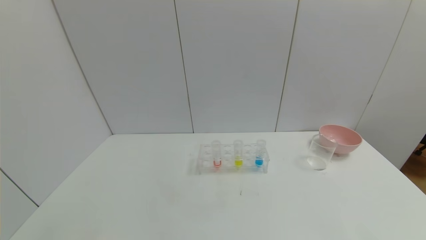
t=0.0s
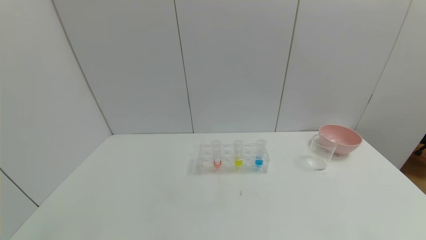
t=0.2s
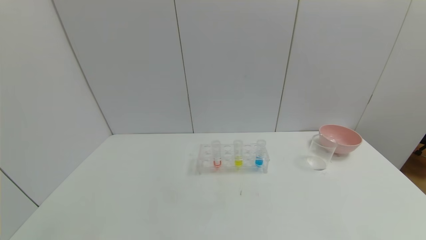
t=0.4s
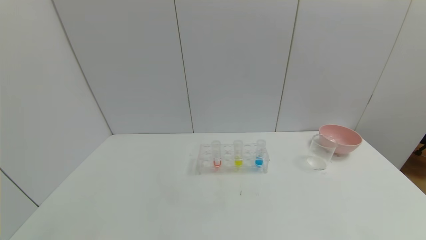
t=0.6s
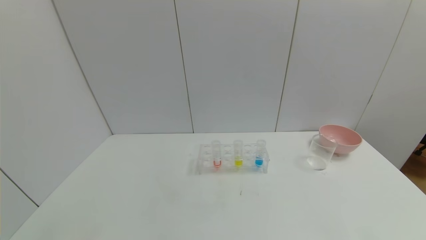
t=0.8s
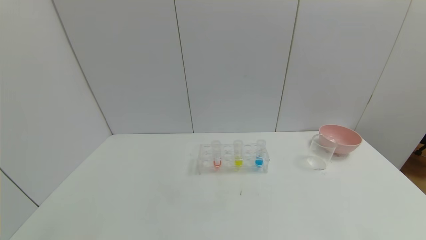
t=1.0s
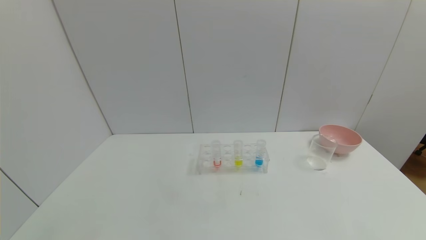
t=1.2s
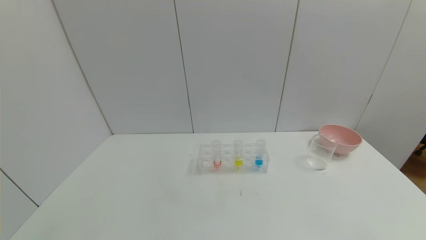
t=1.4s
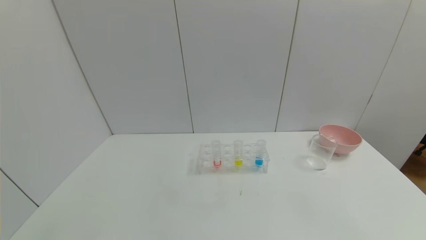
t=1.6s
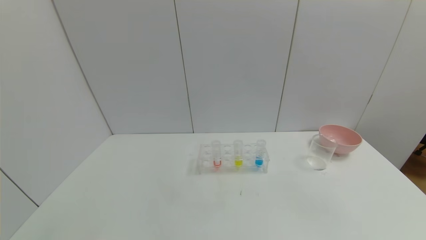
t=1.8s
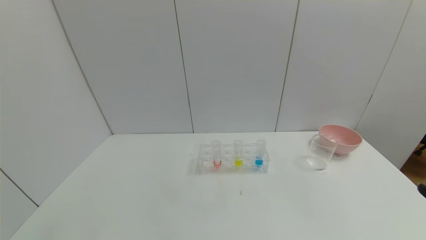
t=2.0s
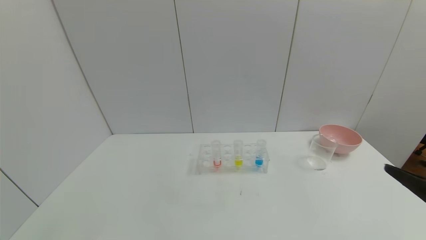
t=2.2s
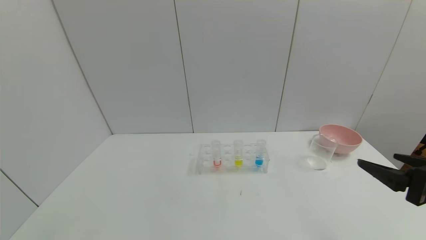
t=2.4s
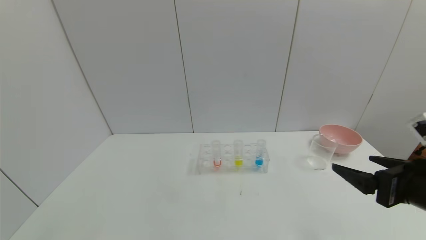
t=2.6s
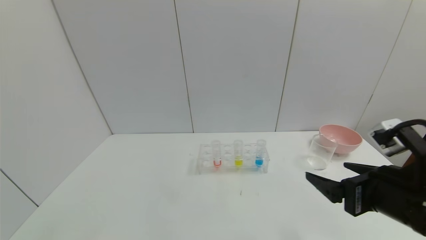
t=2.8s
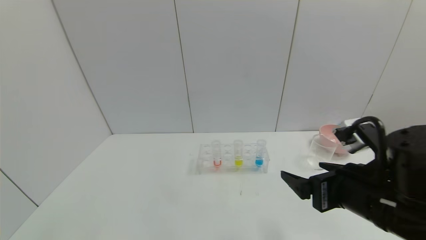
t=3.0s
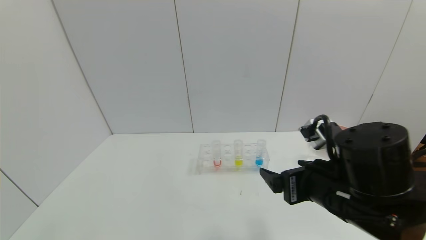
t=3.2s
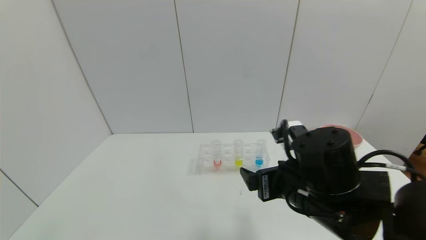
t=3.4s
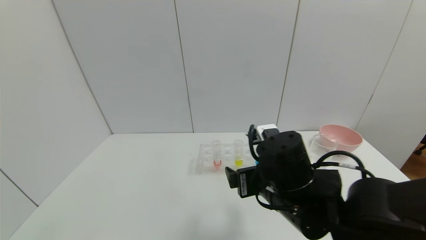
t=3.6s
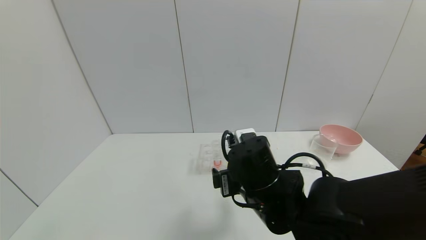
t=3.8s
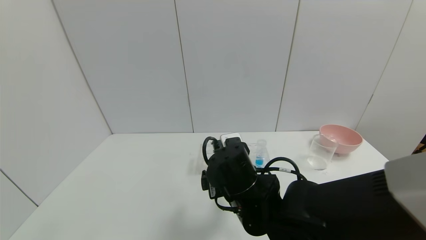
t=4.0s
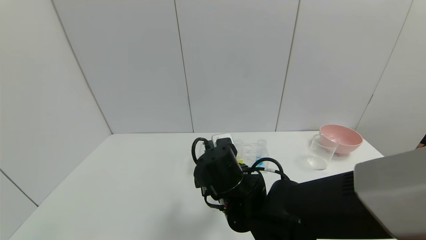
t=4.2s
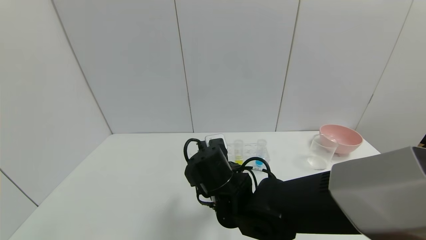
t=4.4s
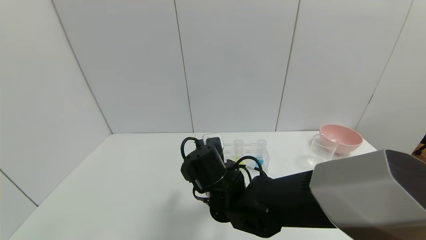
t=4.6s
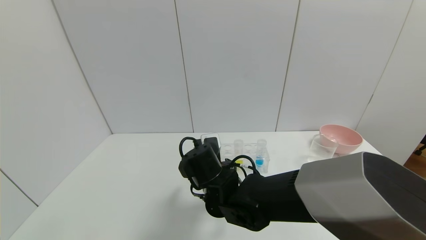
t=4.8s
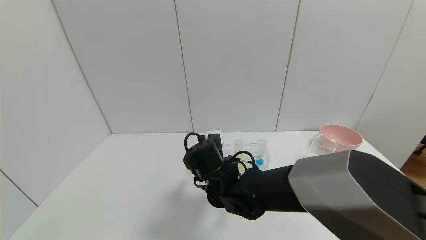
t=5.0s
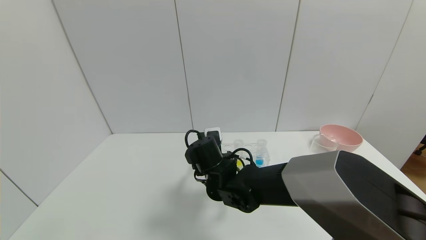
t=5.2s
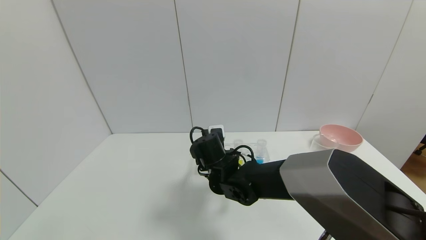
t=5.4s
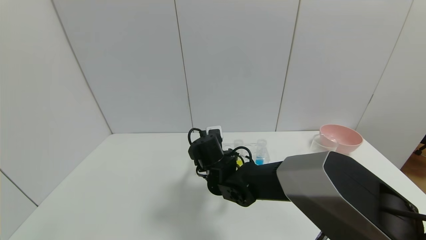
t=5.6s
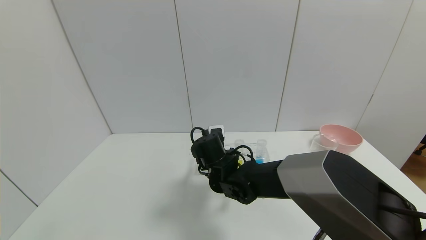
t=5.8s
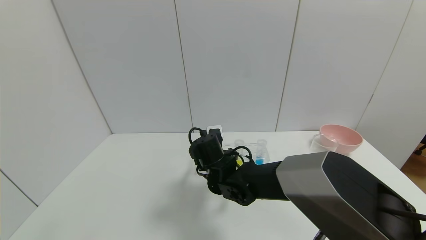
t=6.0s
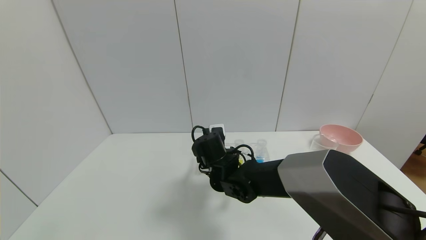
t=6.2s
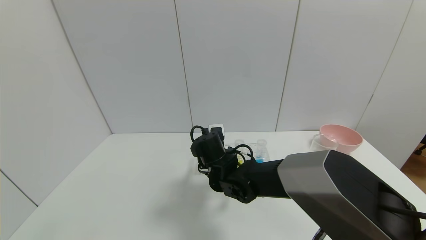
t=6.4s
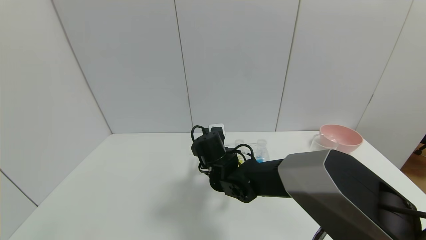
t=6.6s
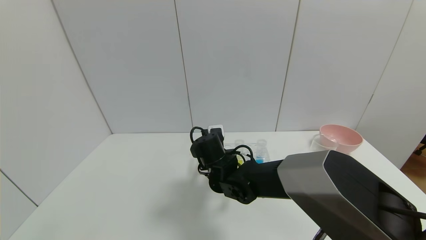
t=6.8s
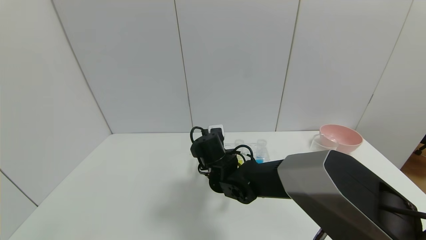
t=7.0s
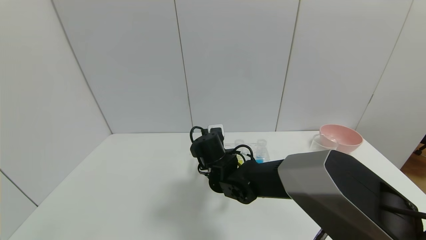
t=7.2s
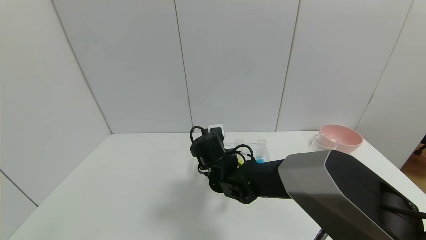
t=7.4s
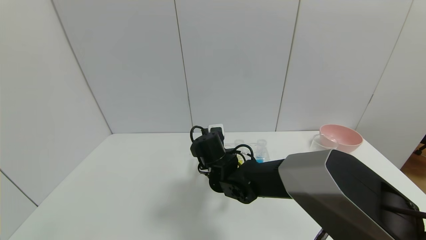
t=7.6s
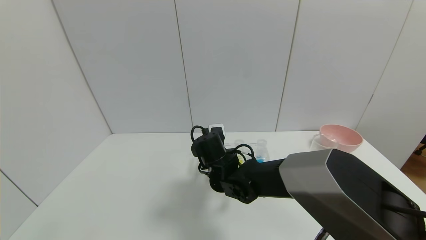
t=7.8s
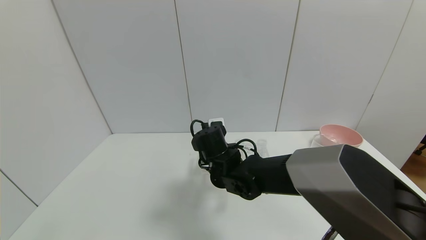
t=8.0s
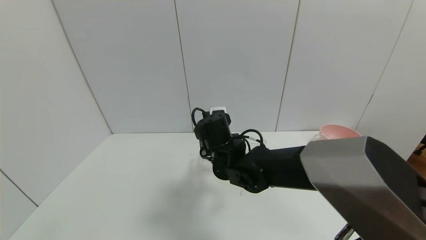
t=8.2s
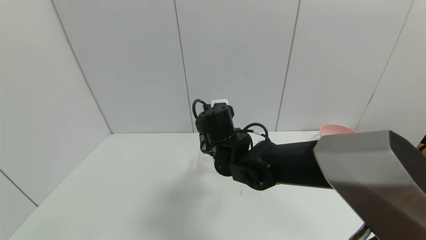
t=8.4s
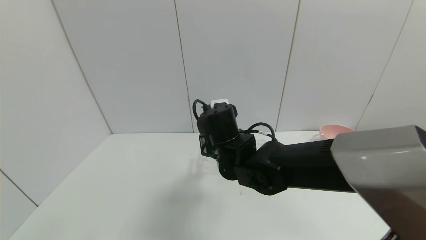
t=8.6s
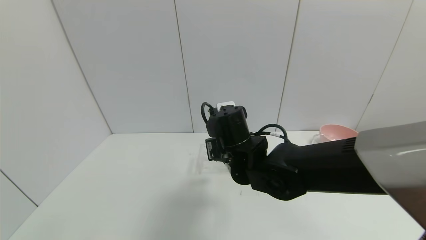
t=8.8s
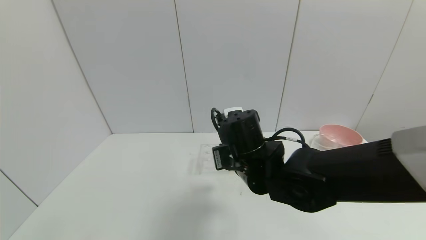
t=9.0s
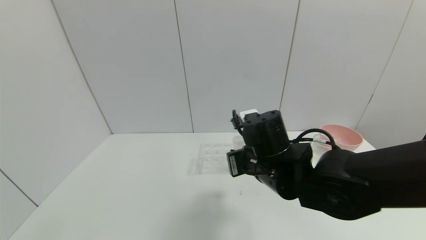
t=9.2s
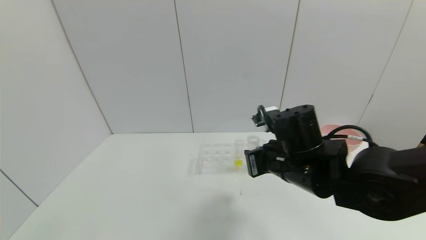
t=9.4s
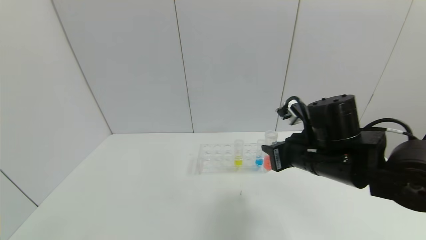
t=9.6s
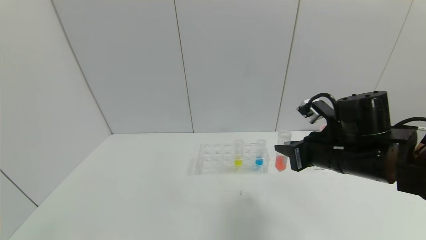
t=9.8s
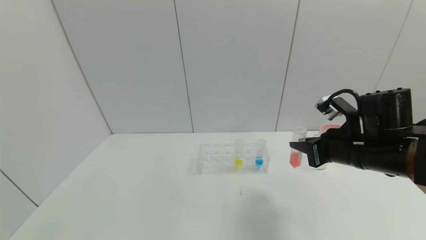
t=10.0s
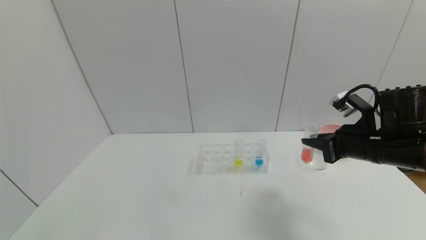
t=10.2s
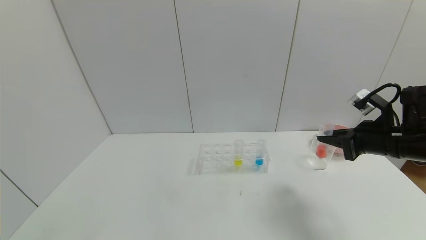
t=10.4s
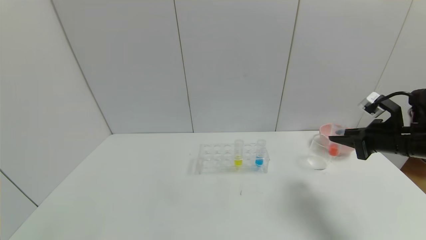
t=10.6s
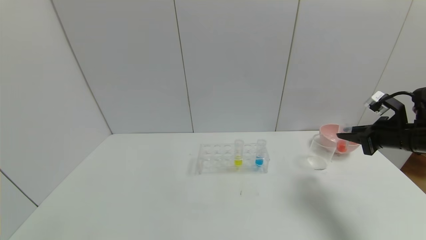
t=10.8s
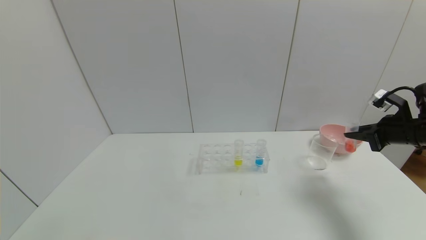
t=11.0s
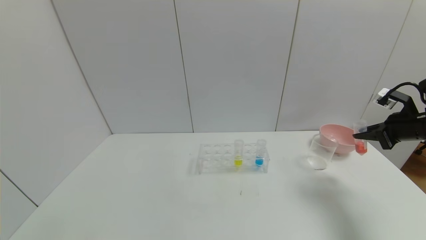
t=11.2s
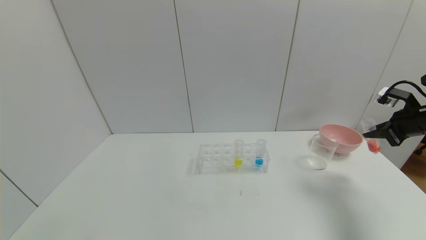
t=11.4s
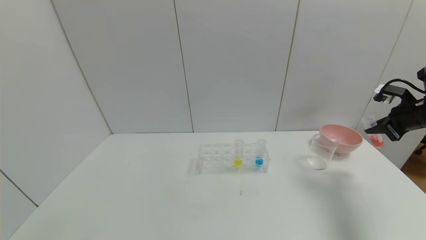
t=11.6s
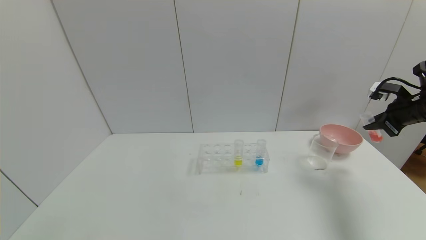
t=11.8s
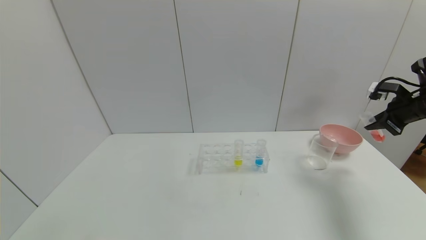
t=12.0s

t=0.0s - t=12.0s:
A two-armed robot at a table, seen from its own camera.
Task of the whole recording: pick up the test tube with yellow pigment and the test tube with red pigment by grippers and pour them into the beaker.
Step, t=0.0s - t=10.0s: Pick up the test tube containing the red reagent with right gripper.
t=1.6s - t=3.0s: The right gripper travels forward and to the left by some 25 cm.
t=3.0s - t=4.4s: The right gripper heads to the left, forward and downward, covering about 25 cm.
t=4.4s - t=6.0s: The right gripper is displaced forward by approximately 10 cm.
t=6.0s - t=7.6s: The right gripper closes its fingers.
t=7.6s - t=9.0s: The right gripper heads upward, backward and to the right, covering about 10 cm.
t=9.0s - t=10.4s: The right gripper moves to the right, roughly 30 cm.
t=10.4s - t=12.0s: The right gripper heads to the right and forward, covering approximately 15 cm.

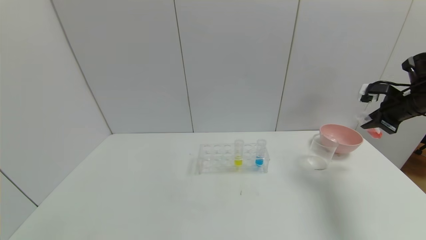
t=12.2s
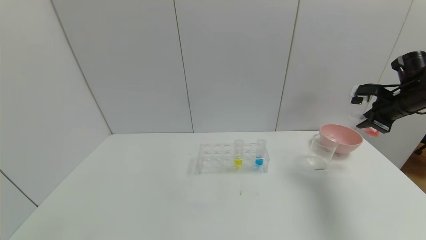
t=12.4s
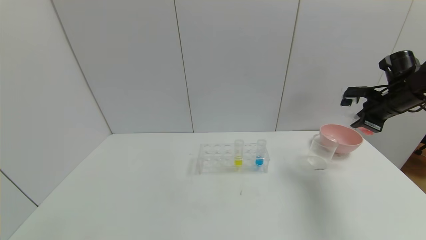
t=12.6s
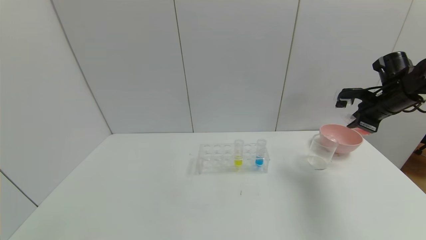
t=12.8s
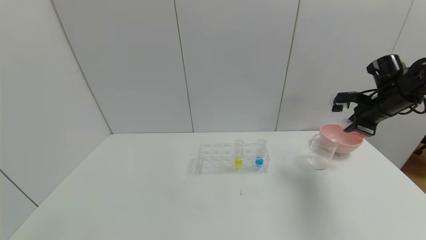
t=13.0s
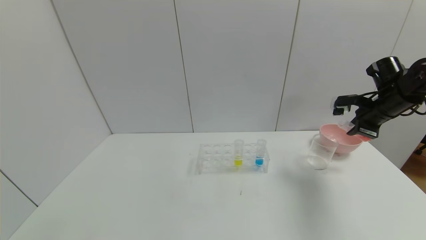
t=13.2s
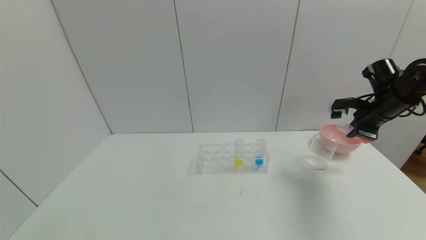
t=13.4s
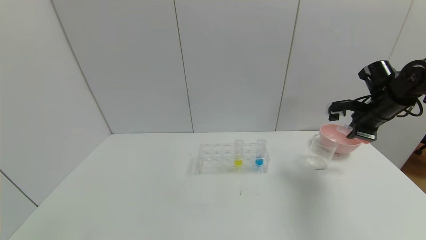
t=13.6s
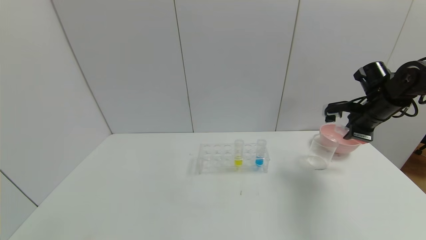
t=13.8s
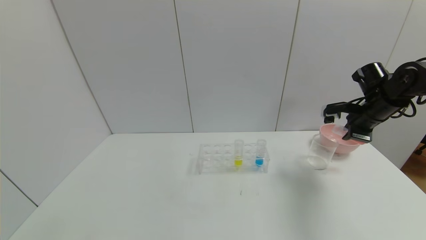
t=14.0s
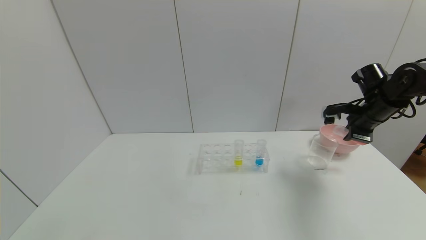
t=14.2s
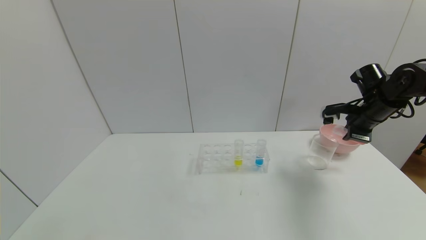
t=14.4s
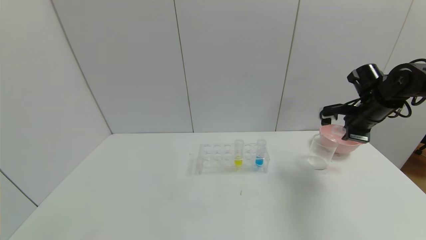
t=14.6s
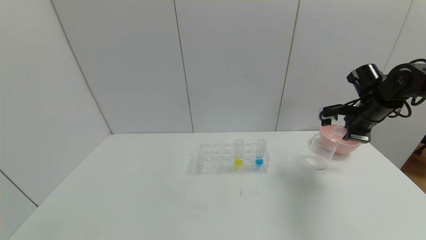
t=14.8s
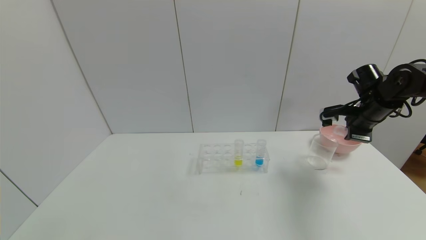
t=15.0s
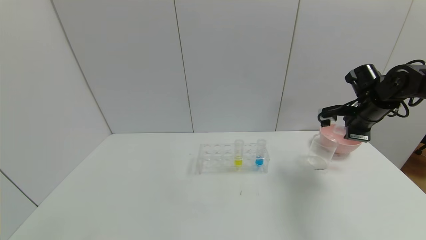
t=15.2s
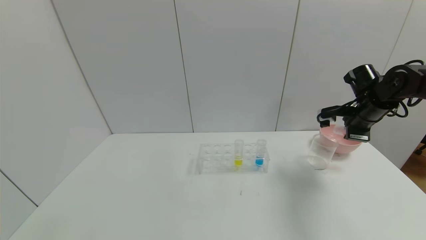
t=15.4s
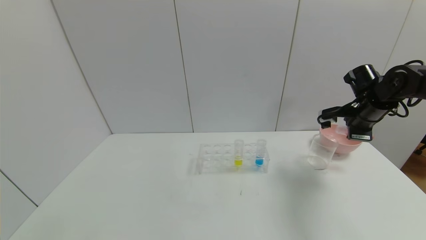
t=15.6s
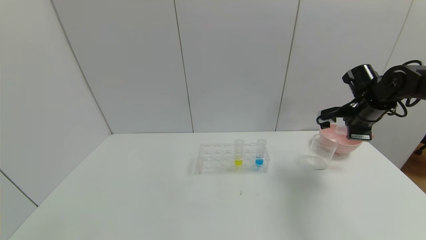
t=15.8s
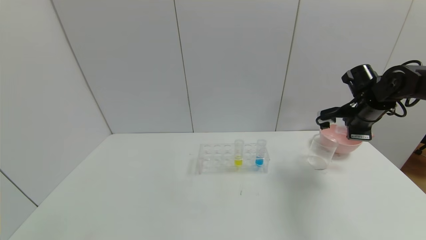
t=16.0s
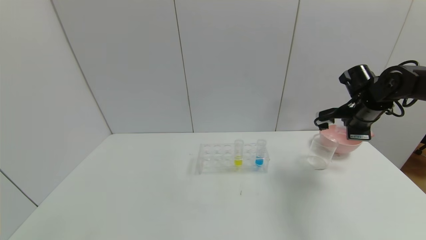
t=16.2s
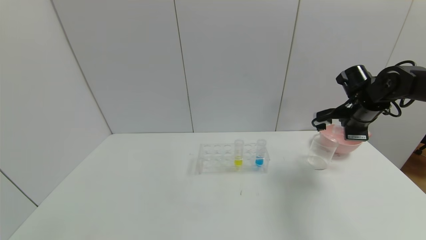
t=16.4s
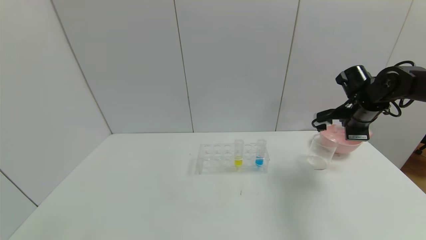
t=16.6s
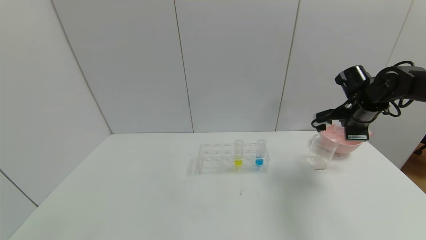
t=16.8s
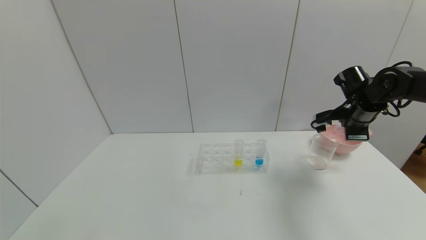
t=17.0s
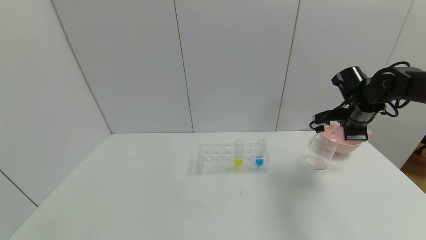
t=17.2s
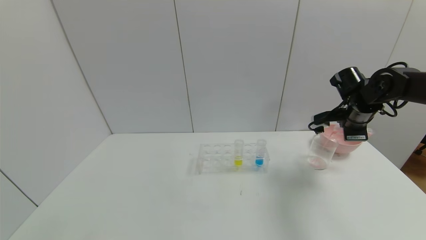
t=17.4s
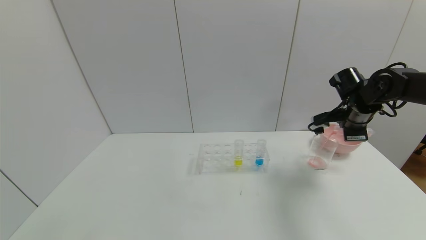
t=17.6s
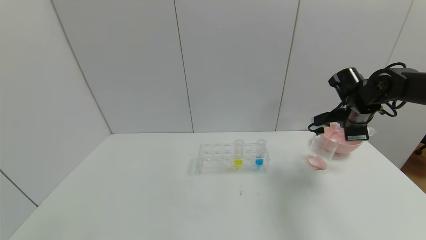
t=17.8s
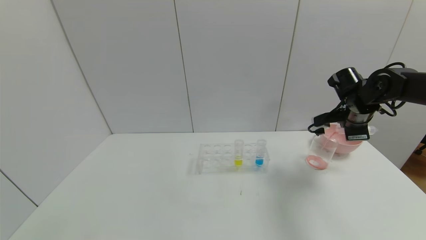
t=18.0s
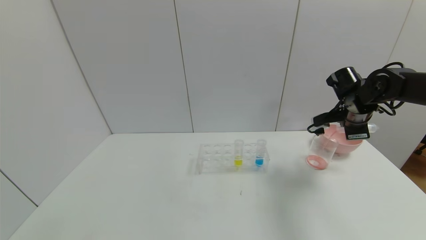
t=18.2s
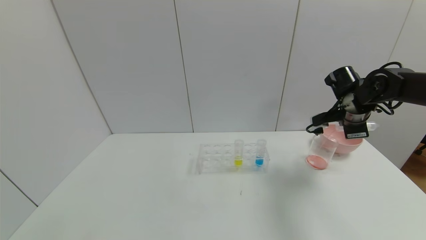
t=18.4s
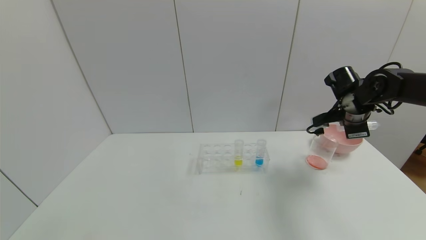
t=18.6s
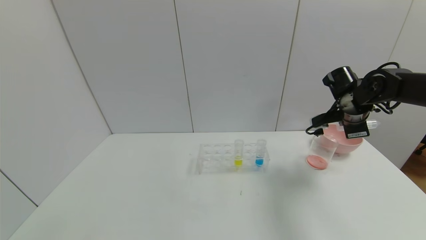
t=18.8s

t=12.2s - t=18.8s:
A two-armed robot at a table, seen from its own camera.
Task of the whole recording: pick up the test tube with yellow pigment and the test tube with red pigment by grippers and pour them into the beaker.
t=12.2s - t=13.8s: The right gripper is displaced to the left by roughly 10 cm.
t=13.8s - t=15.4s: The grippers make only small movements.
t=15.4s - t=17.2s: The grippers make only small movements.
t=17.2s - t=18.8s: The grippers stay close to where they were, moving slightly.
